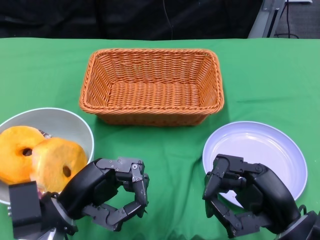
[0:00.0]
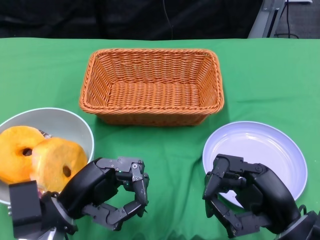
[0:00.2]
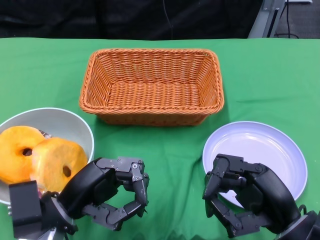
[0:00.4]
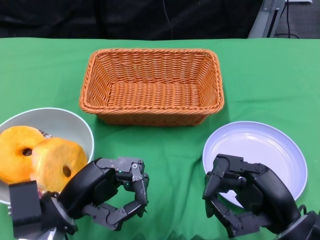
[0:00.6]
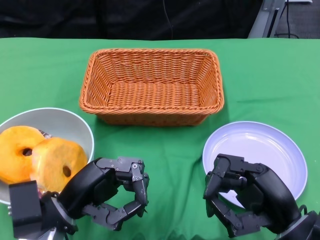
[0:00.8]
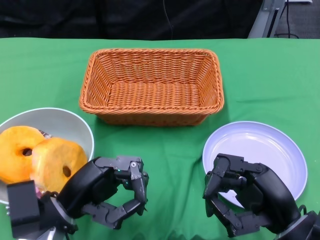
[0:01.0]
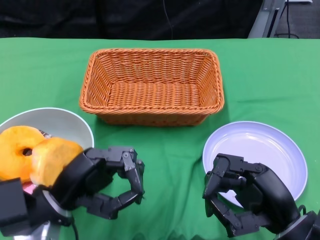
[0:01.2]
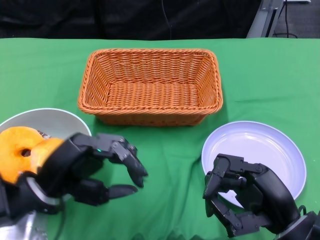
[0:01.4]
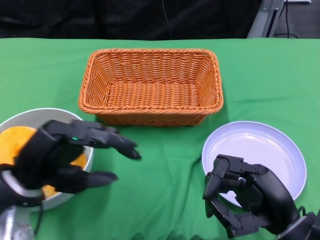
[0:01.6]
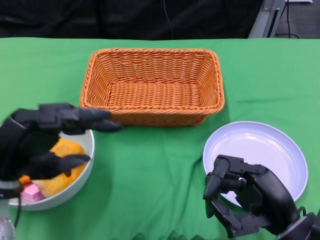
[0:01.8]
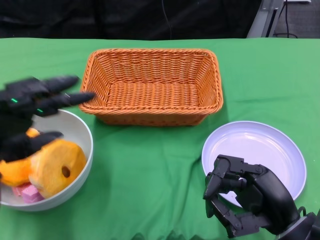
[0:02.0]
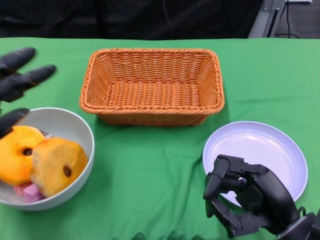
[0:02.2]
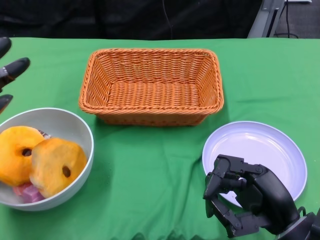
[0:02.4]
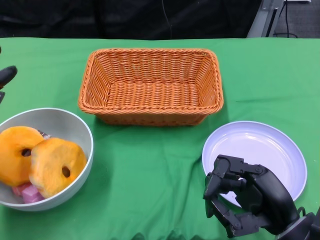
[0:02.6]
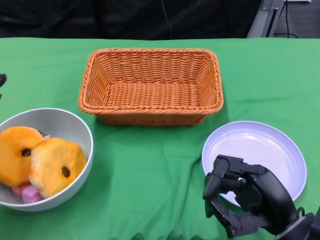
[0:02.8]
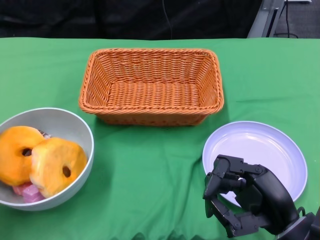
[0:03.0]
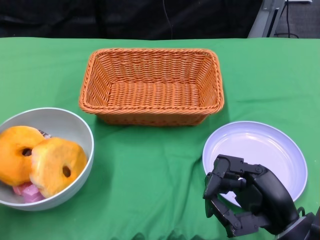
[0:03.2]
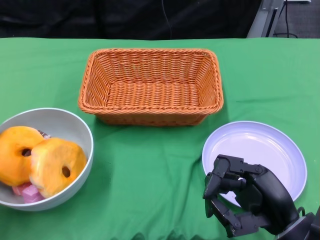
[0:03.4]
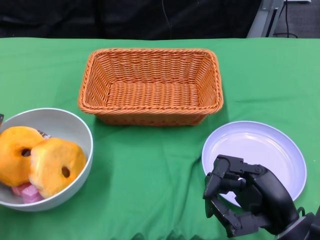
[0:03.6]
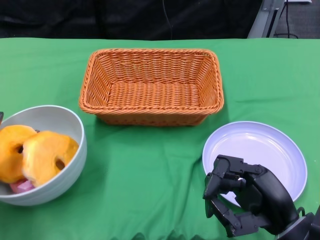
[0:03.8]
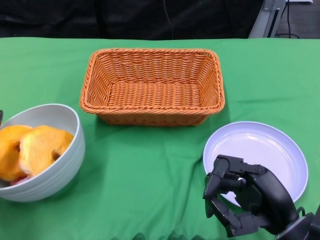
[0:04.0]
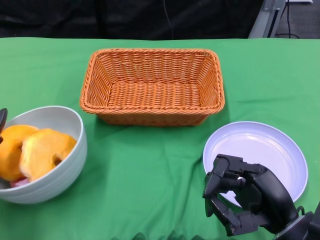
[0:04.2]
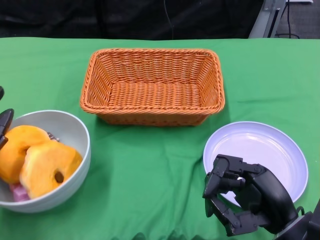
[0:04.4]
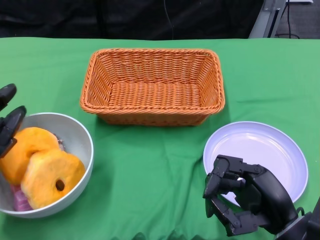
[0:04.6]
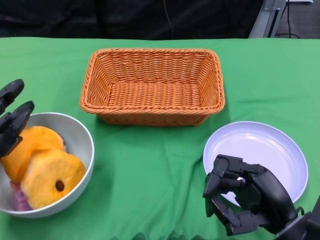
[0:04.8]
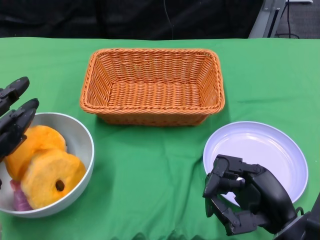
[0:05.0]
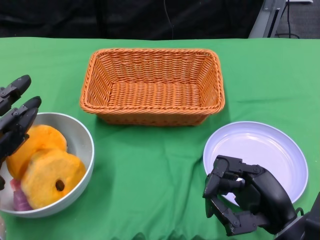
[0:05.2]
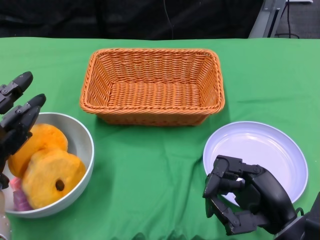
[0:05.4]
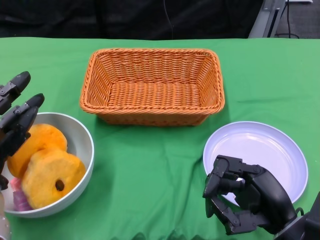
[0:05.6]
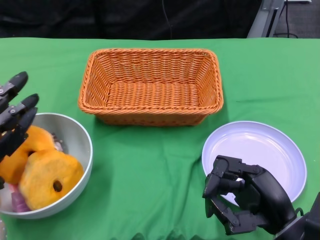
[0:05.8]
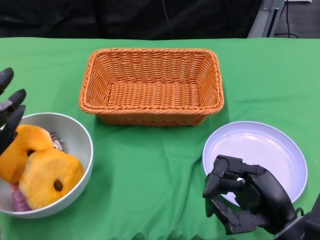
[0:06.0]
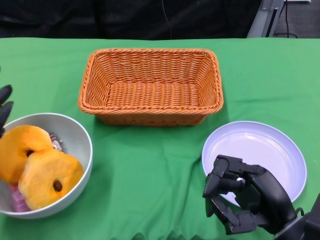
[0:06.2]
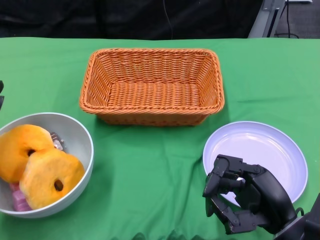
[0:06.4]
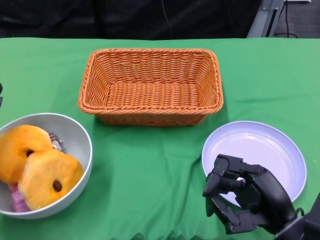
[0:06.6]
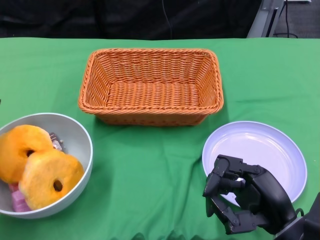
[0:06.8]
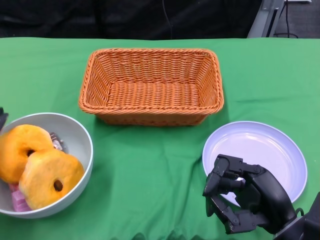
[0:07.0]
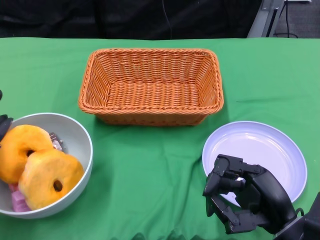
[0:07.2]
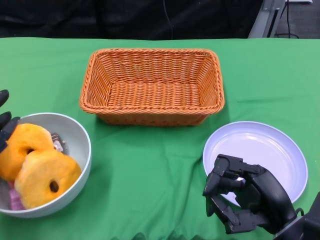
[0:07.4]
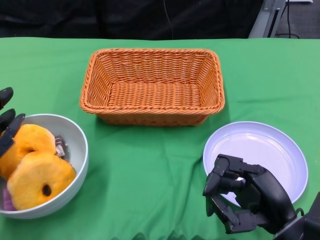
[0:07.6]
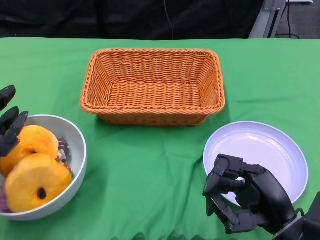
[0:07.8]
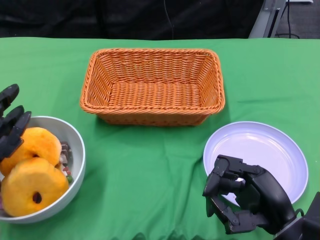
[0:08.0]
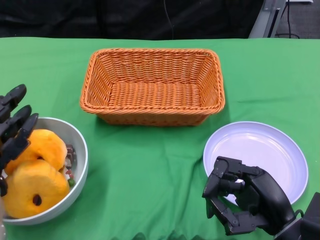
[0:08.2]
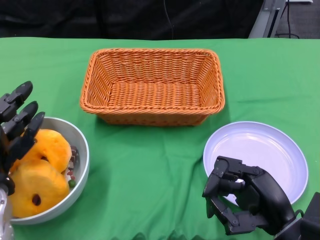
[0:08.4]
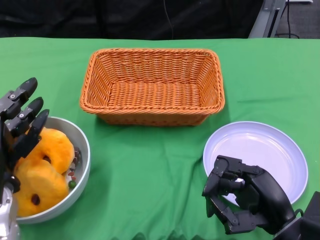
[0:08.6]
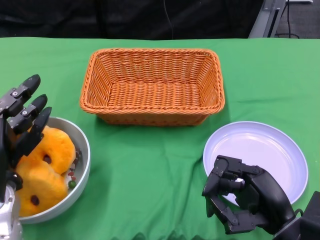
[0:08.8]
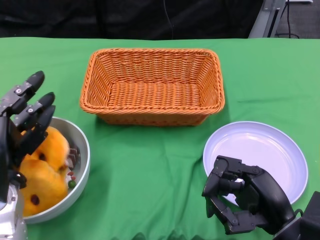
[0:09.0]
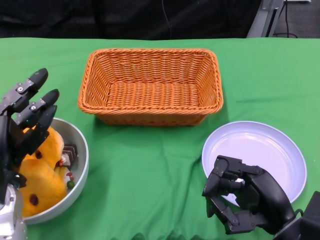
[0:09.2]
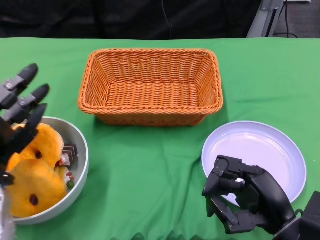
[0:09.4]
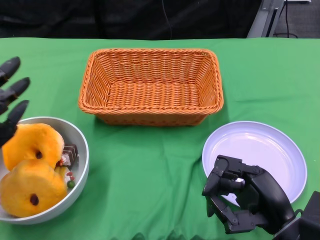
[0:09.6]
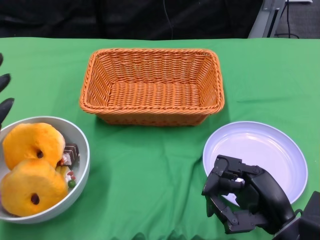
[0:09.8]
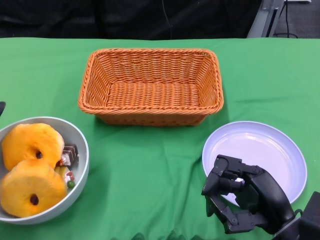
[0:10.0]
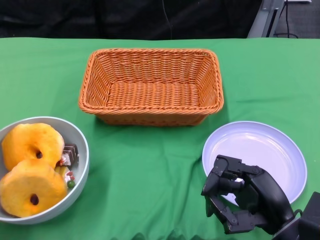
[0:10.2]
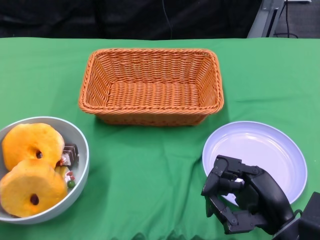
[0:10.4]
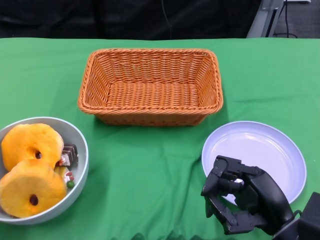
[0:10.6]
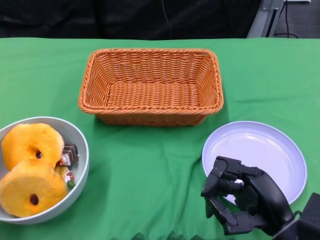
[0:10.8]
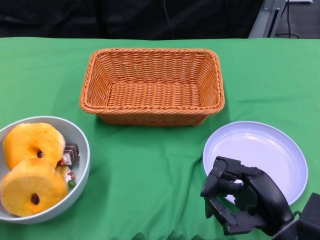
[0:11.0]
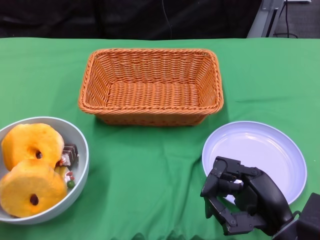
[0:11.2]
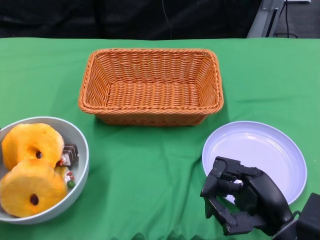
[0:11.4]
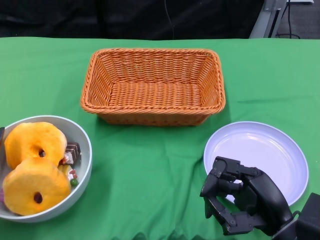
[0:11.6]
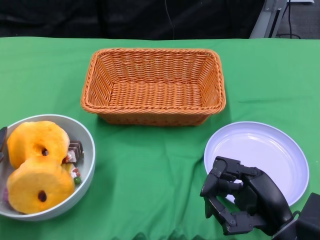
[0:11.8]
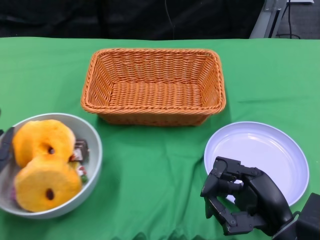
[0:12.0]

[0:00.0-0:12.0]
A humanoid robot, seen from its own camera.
0:01.6 to 0:03.0: The left hand moves to the left, some 10 cm.
0:06.0 to 0:09.0: There are only small adjustments of the hands.
0:09.0 to 0:10.4: The left hand moves to the left, about 10 cm.
0:10.4 to 0:12.0: The left hand changes place by some 5 cm.

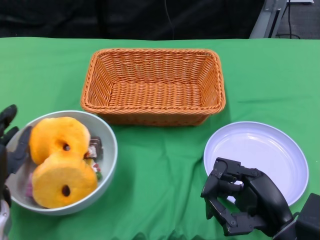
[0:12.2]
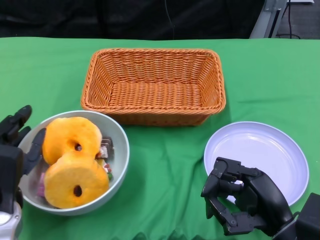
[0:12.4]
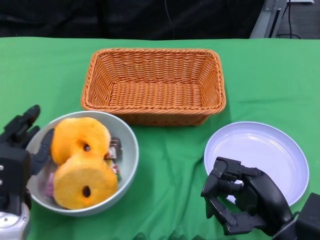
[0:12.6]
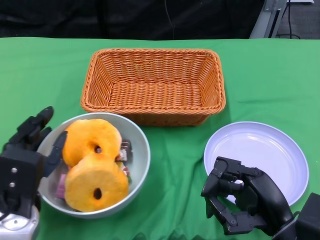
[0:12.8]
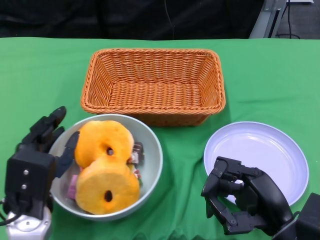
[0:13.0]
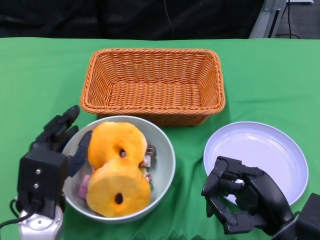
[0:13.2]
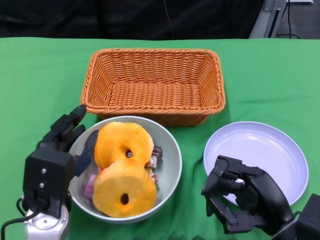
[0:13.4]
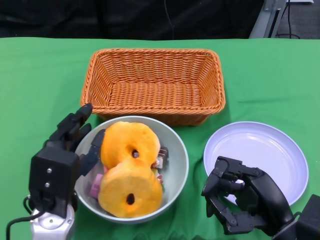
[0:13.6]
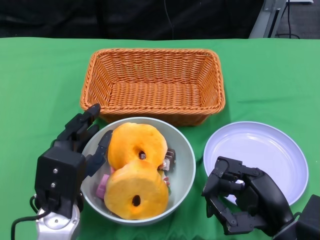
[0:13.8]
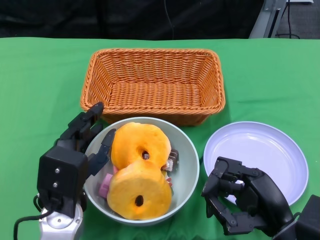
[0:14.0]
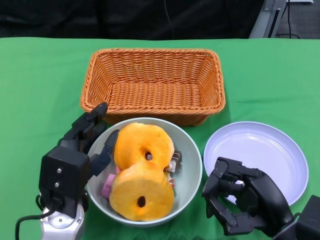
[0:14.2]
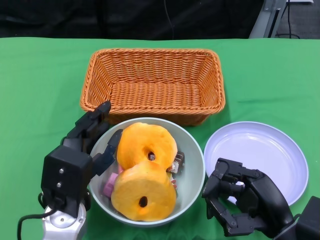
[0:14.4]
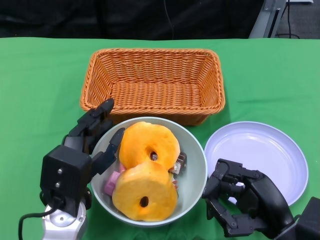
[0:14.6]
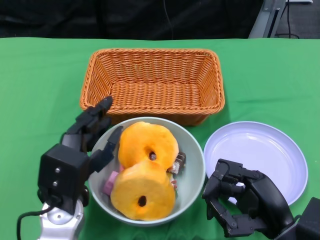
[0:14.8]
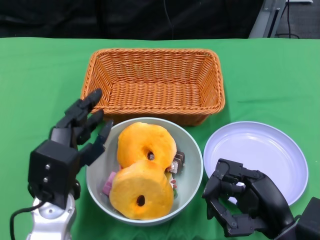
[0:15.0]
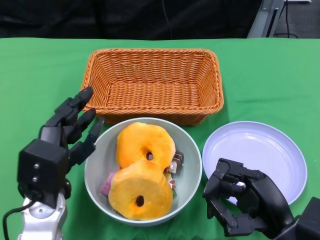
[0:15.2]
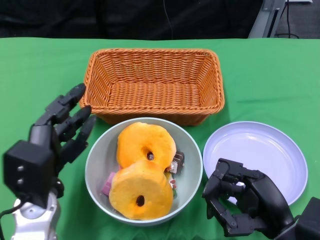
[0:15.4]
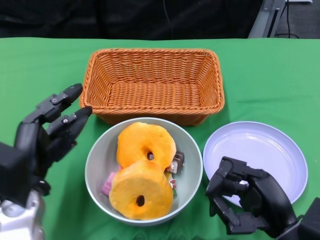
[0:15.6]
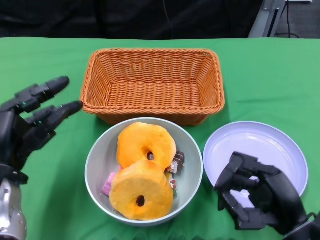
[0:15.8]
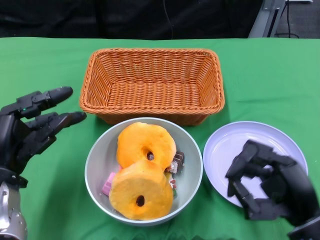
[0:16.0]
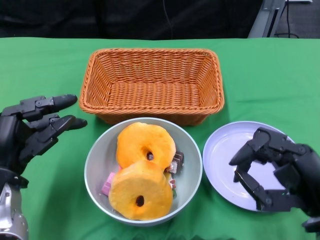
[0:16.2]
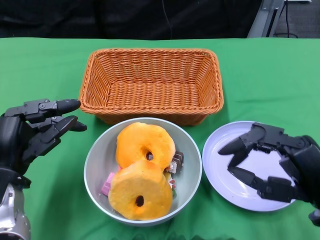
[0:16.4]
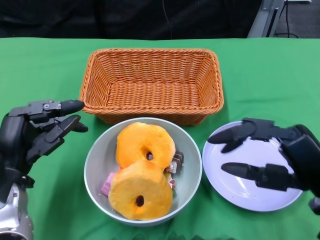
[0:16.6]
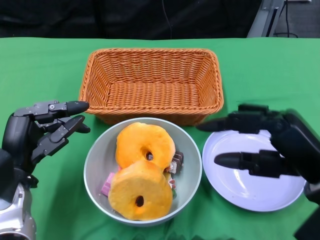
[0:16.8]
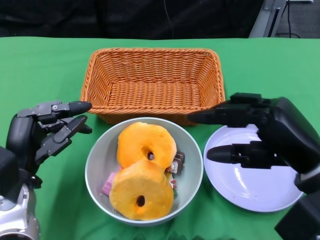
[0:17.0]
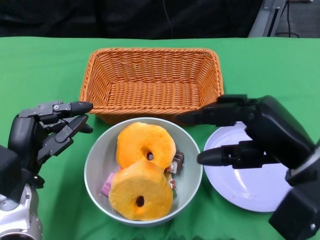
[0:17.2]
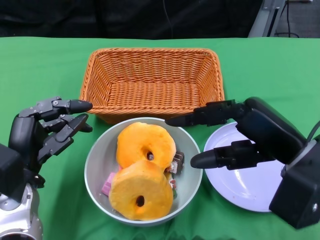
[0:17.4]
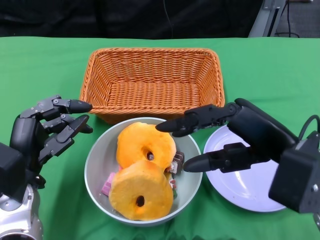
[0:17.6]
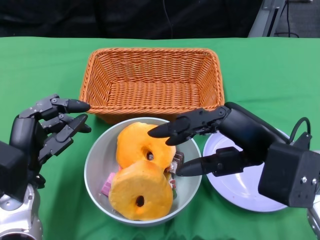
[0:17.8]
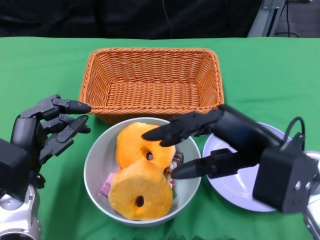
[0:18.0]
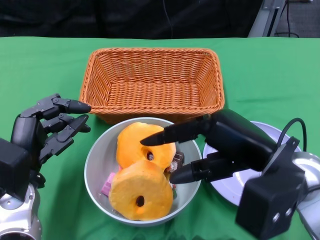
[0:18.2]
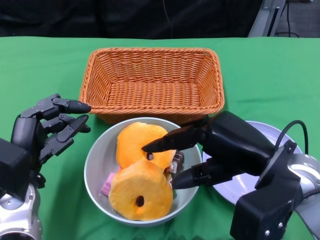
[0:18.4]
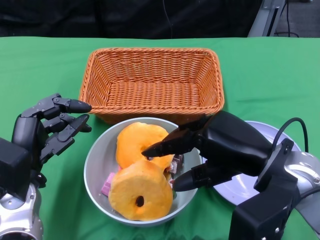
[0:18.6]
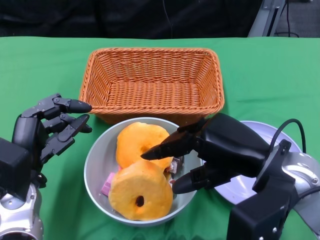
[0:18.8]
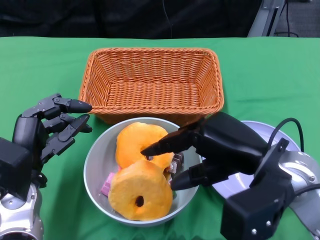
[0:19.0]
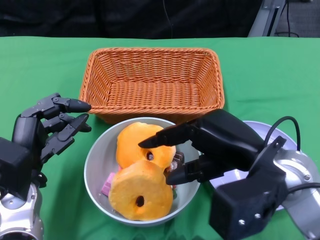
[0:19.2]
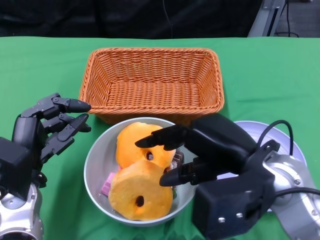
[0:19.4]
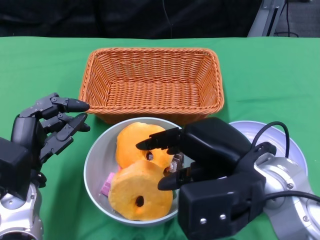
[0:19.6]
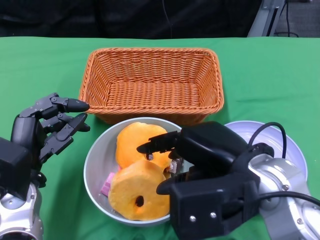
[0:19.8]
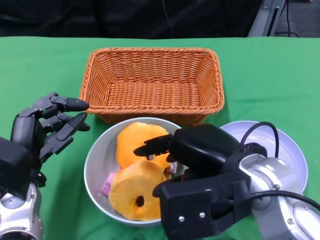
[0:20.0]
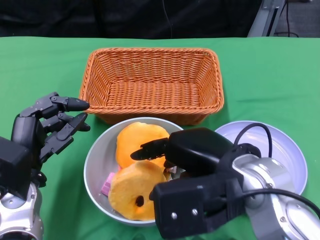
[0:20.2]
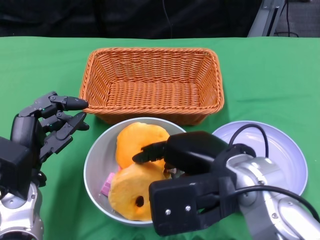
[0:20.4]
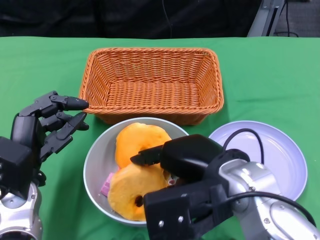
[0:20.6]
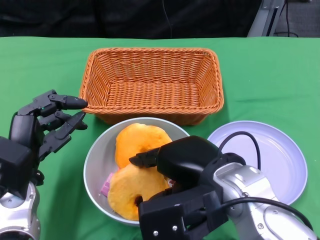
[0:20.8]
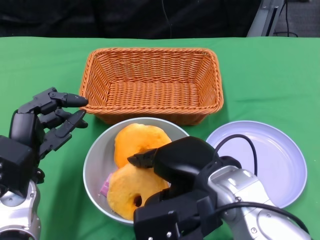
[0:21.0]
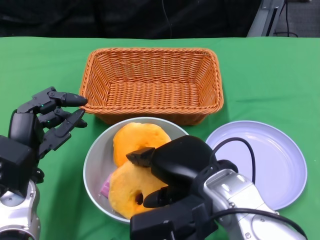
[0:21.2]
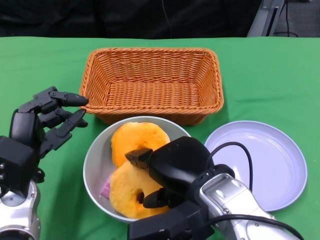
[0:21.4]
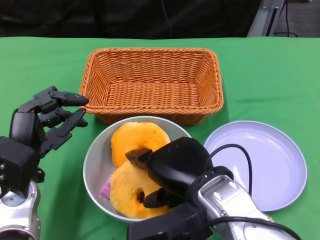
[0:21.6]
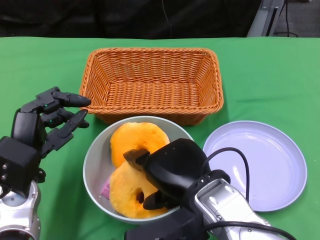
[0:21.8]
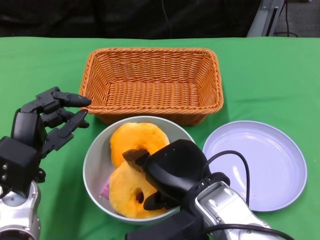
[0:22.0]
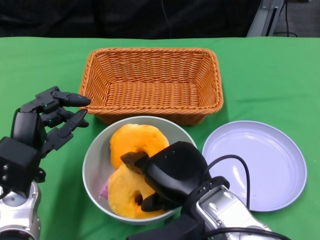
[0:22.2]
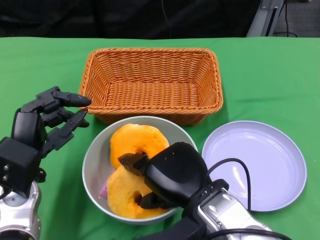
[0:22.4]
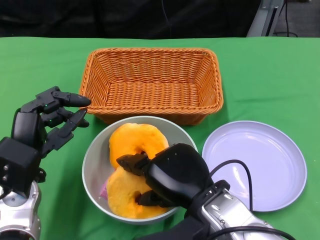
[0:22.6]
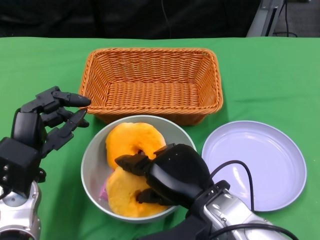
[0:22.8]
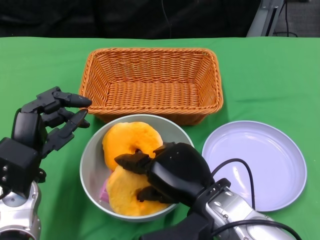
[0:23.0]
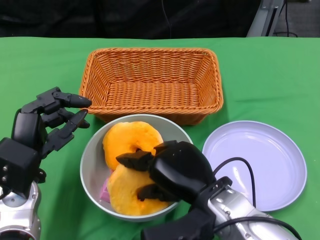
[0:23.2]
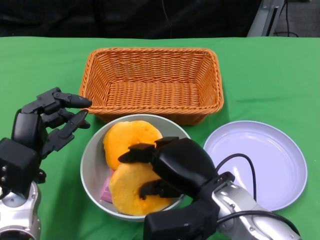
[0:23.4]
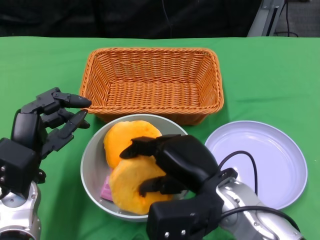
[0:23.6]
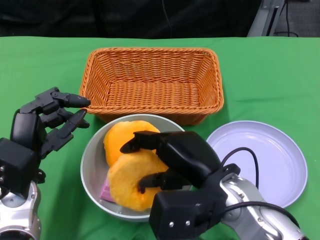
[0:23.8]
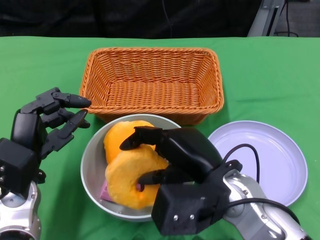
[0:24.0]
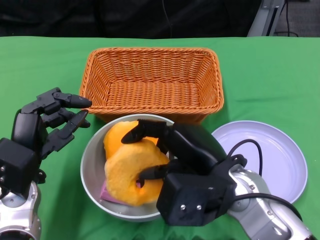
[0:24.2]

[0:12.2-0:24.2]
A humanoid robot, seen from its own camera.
Step, 0:12.2 to 0:15.0: Push the bowl to the center of the table using the left gripper.
0:12.2 to 0:13.8: The left hand is displaced to the right by approximately 10 cm.
0:13.8 to 0:15.2: The hands stay close to where they were, moving slightly.
0:15.2 to 0:16.6: The left hand shifts some 5 cm to the left. Meanwhile the right hand shifts roughly 10 cm upward.
0:16.6 to 0:18.2: The right hand goes about 5 cm to the left.
0:19.8 to 0:21.2: The right hand changes place by roughly 5 cm.
0:21.2 to 0:22.6: The hands stay close to where they were, moving slightly.
